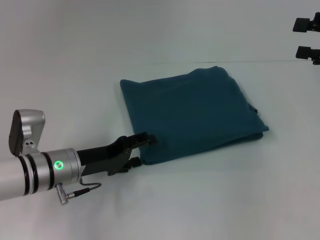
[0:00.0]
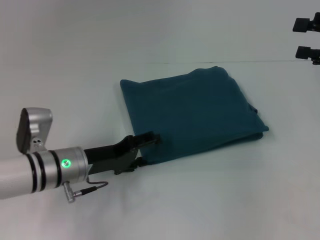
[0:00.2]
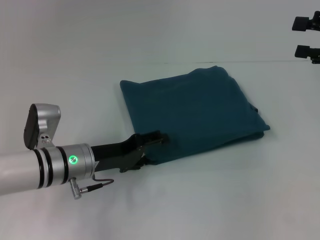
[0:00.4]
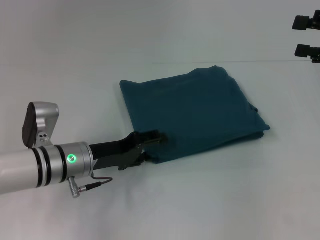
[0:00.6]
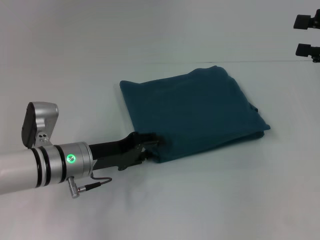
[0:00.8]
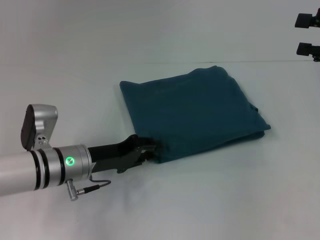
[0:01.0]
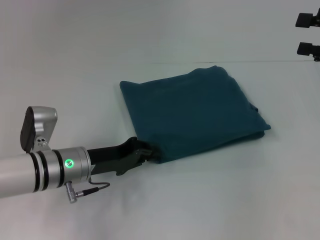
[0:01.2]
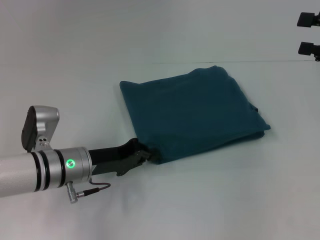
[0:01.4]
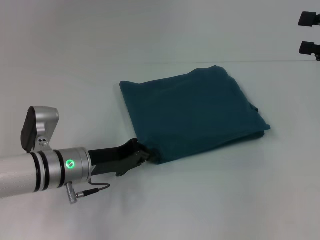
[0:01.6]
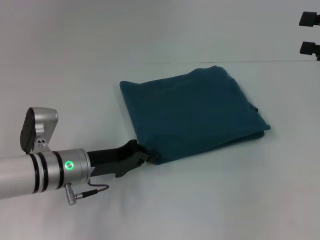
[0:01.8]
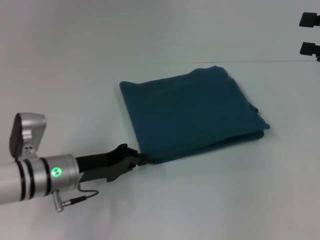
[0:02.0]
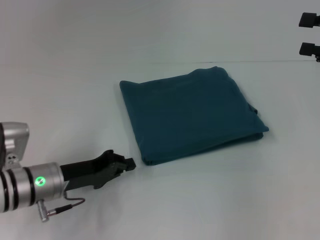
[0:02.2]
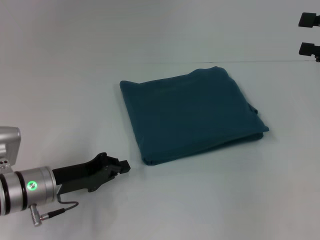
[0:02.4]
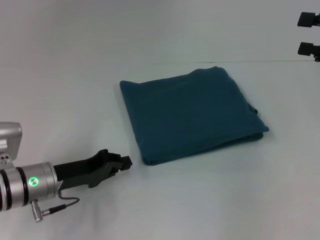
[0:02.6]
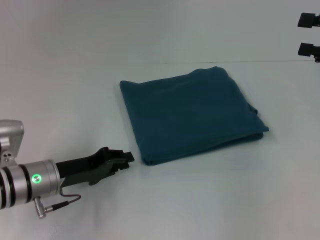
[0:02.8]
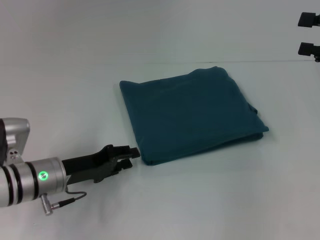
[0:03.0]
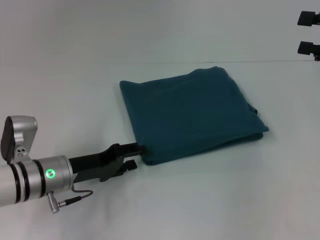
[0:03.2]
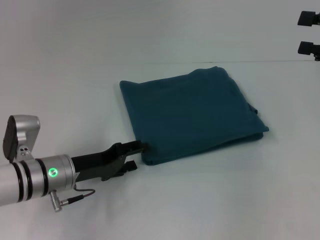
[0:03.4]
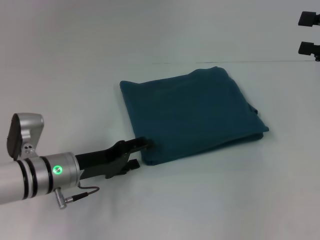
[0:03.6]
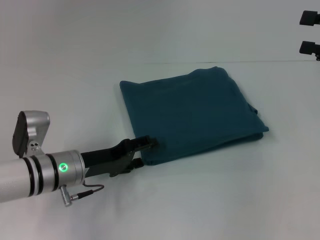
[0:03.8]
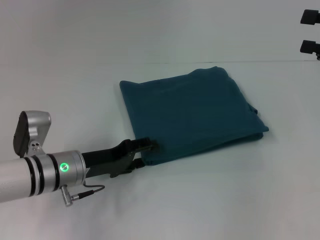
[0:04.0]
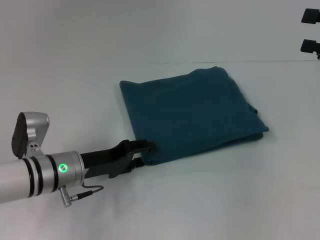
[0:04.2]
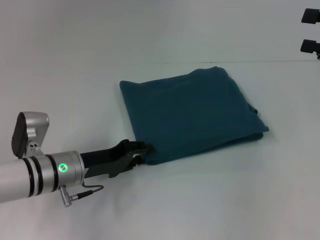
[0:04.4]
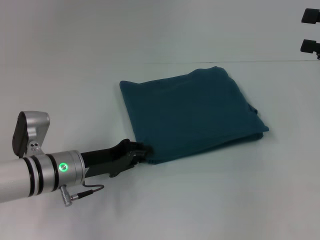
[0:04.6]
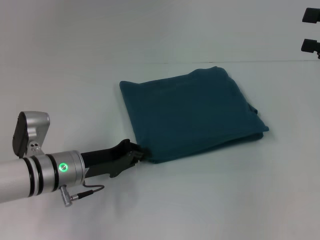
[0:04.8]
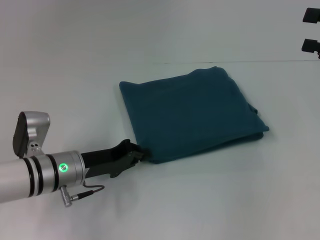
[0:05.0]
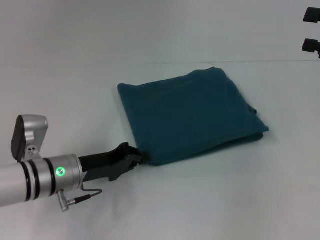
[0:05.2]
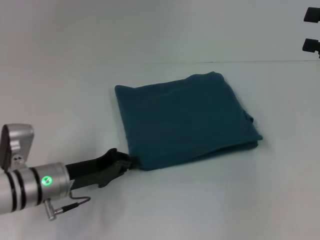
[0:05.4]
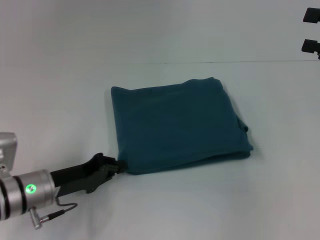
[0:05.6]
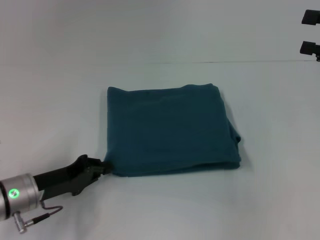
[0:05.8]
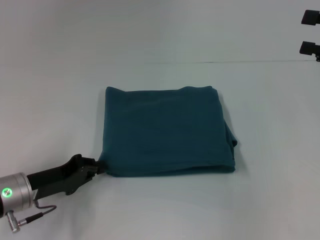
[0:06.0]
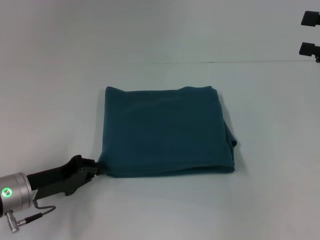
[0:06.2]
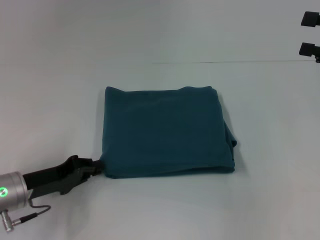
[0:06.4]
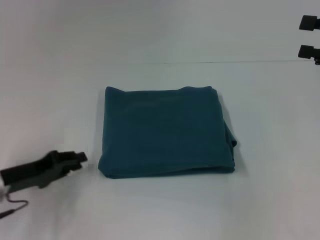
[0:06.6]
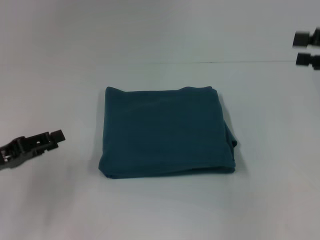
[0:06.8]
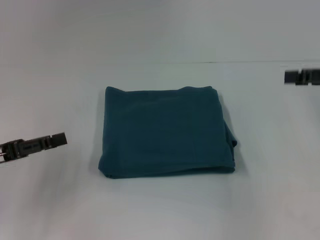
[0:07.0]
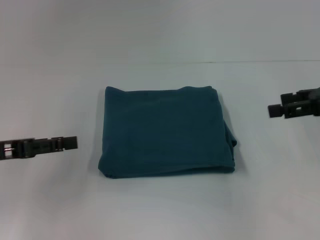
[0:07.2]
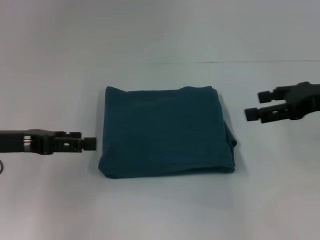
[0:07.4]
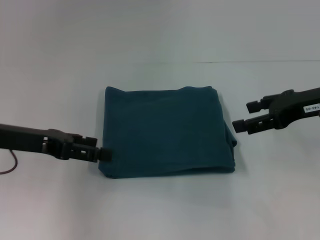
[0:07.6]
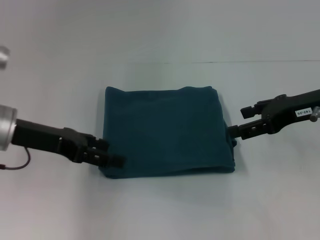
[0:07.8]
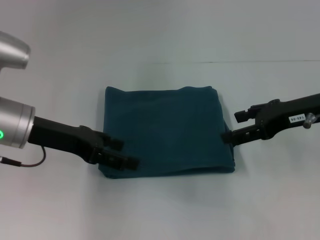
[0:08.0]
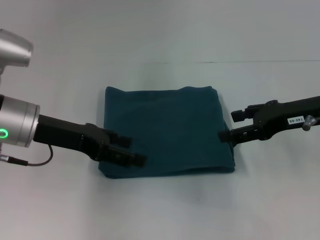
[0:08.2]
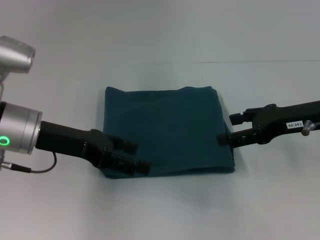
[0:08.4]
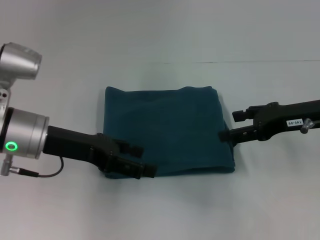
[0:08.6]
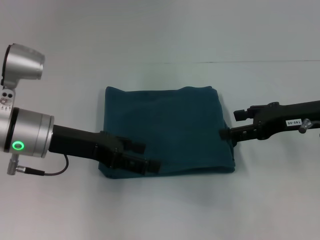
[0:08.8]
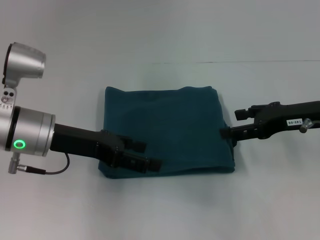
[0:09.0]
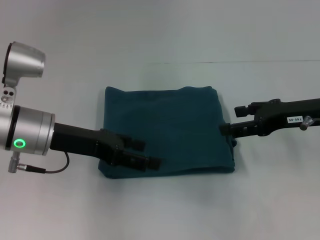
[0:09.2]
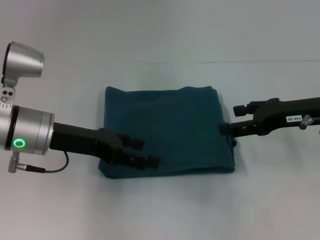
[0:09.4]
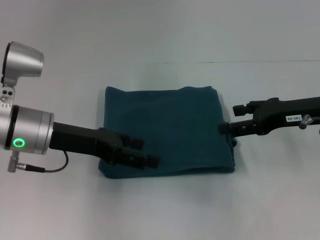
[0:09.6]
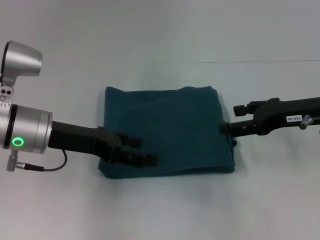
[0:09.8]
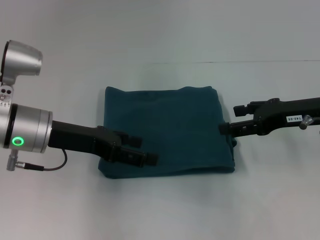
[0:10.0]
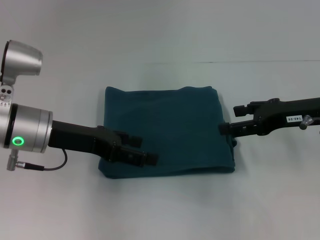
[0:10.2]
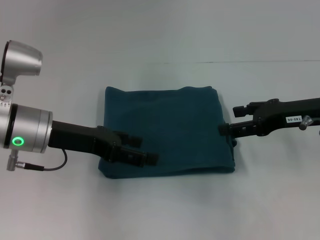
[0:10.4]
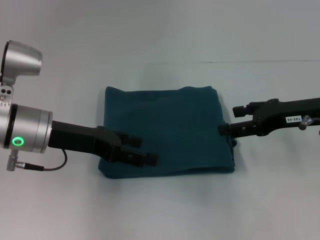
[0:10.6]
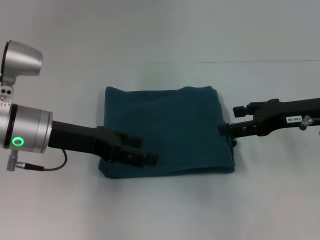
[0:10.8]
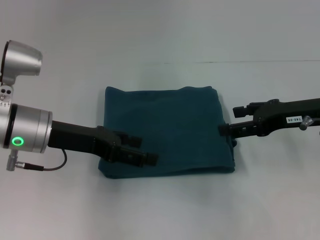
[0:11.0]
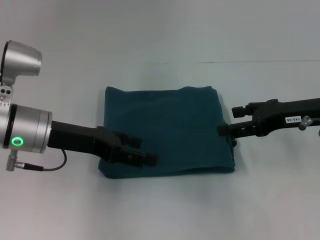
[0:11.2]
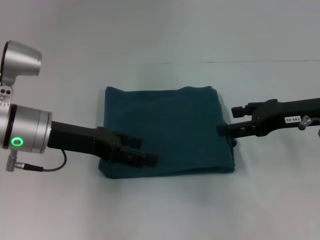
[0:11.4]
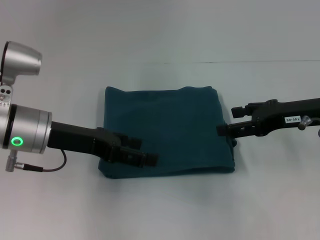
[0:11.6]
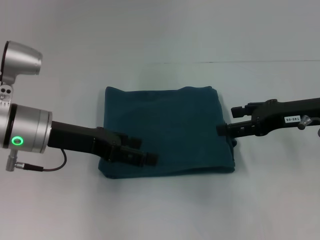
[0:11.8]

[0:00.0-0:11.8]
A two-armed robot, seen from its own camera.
0:00.0 to 0:01.4: The left gripper closes up.
0:01.4 to 0:03.0: The grippers move only a little.
0:03.0 to 0:04.4: The left gripper opens up.
0:04.4 to 0:06.0: The left gripper is displaced to the left by some 5 cm, and closes its fingers.
0:06.0 to 0:07.4: The left gripper shifts roughly 10 cm upward, and opens, while the right gripper is displaced to the left by roughly 5 cm.
0:07.4 to 0:08.8: The right gripper ends up some 5 cm from where it was. The left gripper shifts roughly 10 cm to the right.
0:08.8 to 0:11.8: Neither gripper changes place.

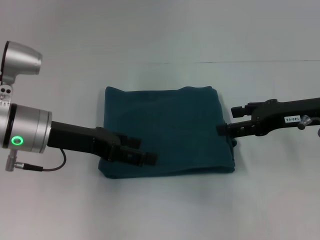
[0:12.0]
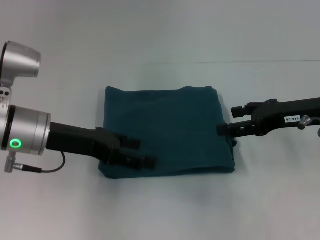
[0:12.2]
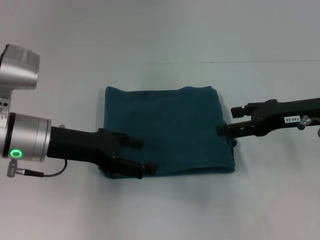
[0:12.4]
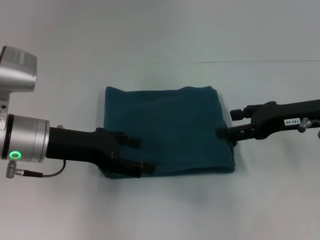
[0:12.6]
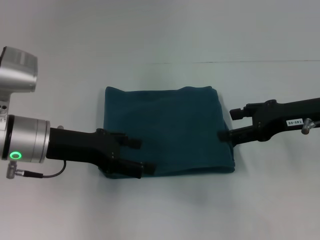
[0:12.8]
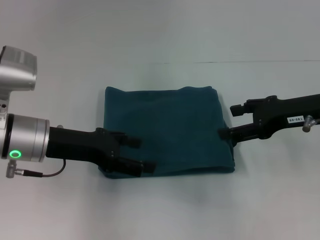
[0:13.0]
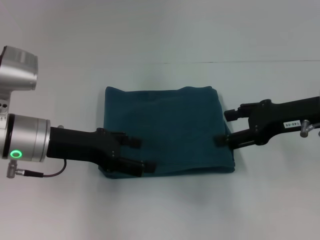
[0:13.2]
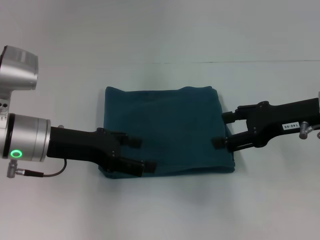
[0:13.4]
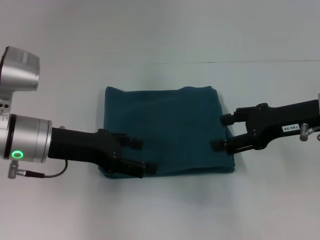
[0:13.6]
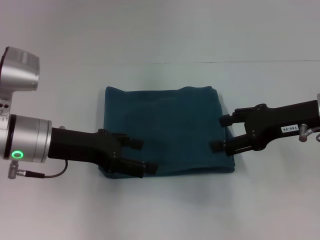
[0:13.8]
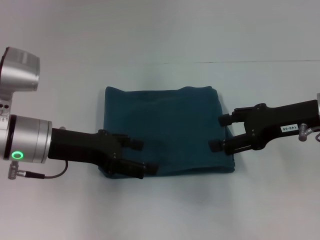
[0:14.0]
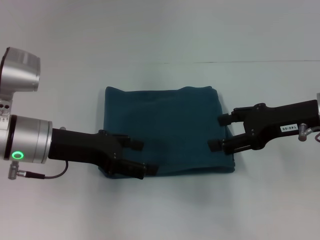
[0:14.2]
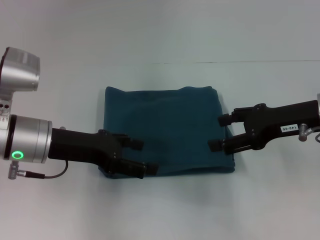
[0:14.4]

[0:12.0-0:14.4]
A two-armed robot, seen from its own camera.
0:12.0 to 0:13.2: There are only small adjustments of the grippers.
0:13.2 to 0:14.4: Neither gripper changes place.

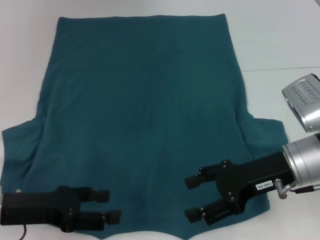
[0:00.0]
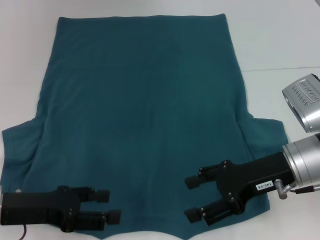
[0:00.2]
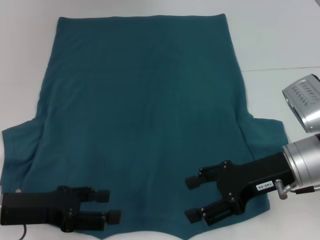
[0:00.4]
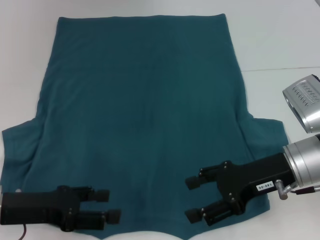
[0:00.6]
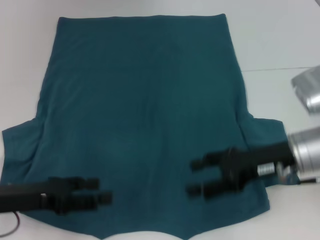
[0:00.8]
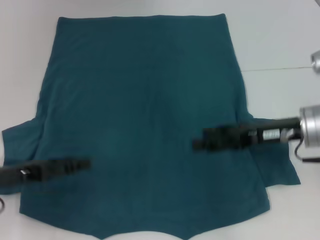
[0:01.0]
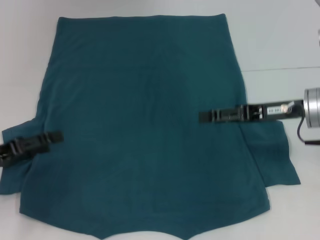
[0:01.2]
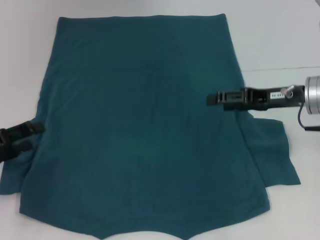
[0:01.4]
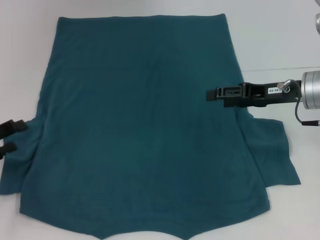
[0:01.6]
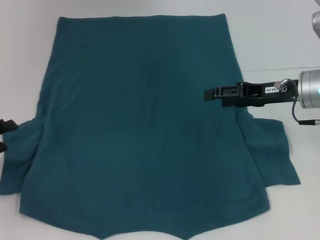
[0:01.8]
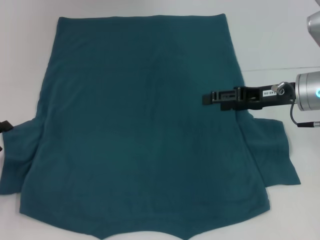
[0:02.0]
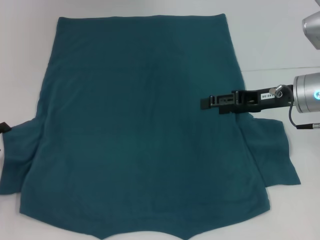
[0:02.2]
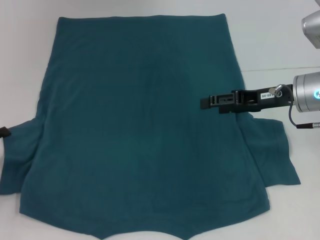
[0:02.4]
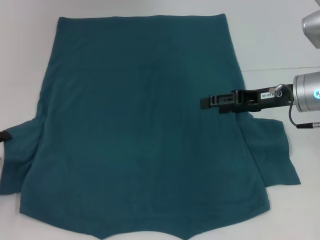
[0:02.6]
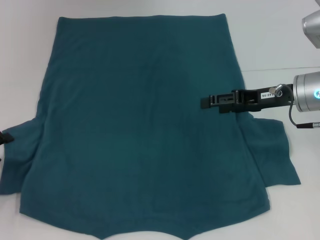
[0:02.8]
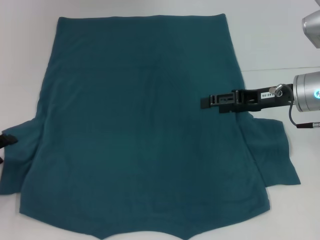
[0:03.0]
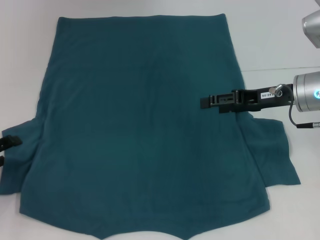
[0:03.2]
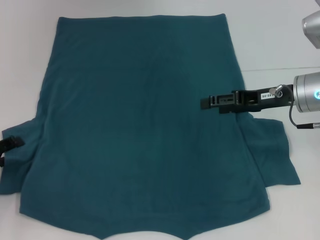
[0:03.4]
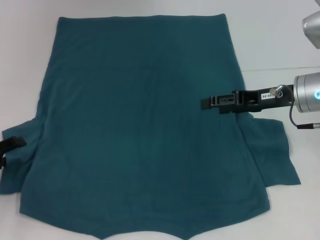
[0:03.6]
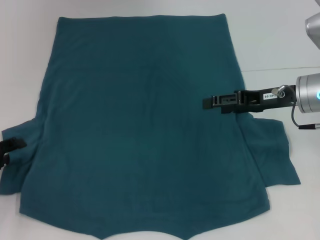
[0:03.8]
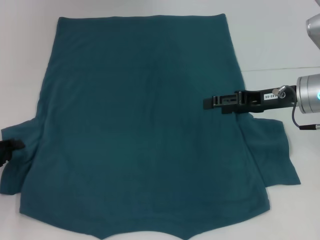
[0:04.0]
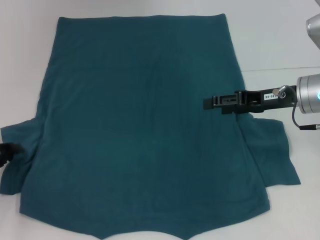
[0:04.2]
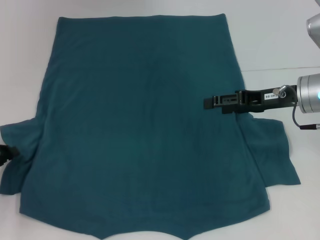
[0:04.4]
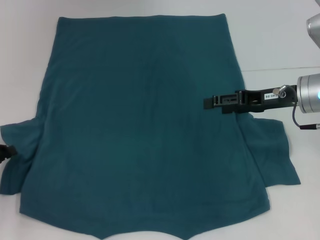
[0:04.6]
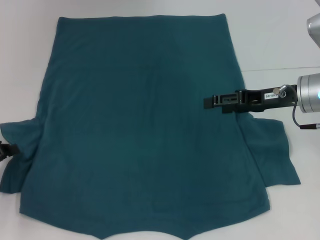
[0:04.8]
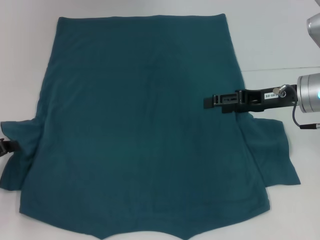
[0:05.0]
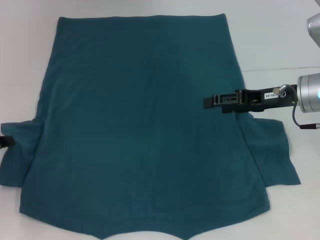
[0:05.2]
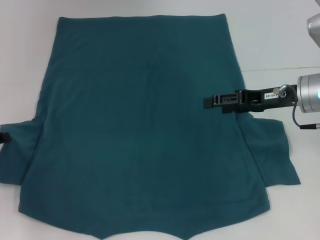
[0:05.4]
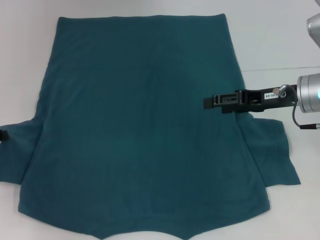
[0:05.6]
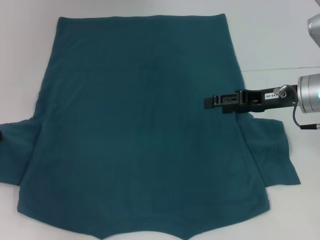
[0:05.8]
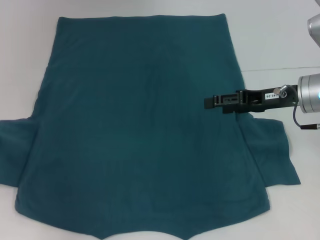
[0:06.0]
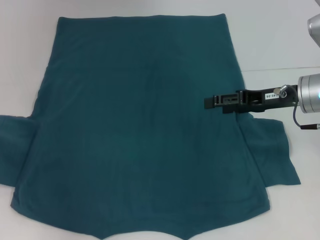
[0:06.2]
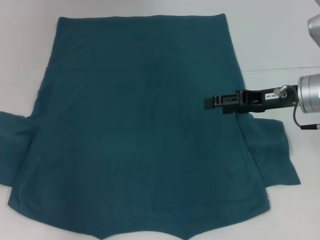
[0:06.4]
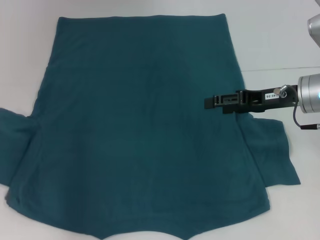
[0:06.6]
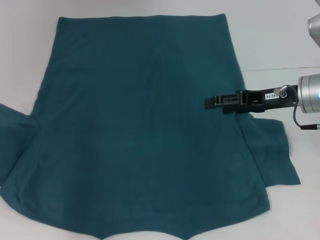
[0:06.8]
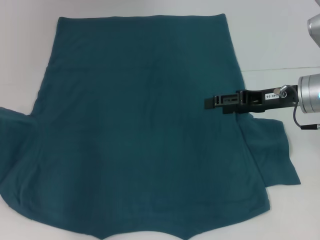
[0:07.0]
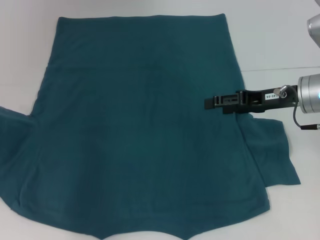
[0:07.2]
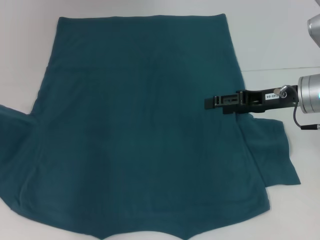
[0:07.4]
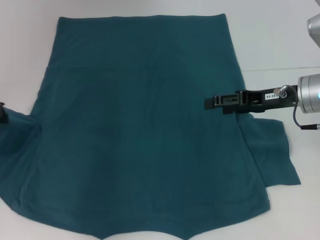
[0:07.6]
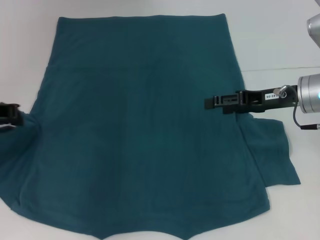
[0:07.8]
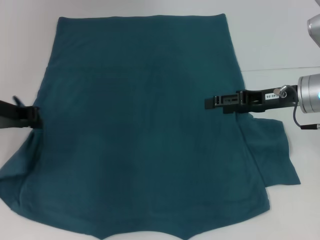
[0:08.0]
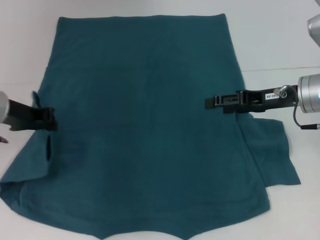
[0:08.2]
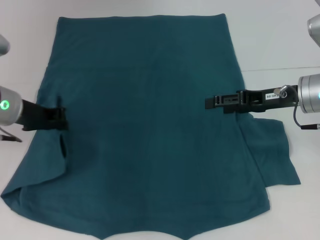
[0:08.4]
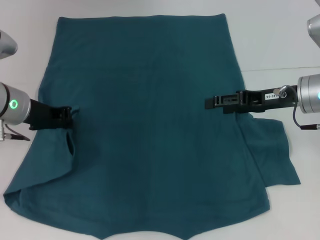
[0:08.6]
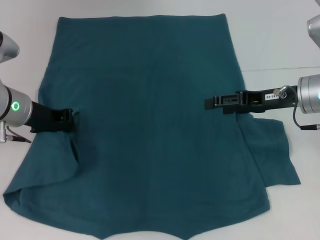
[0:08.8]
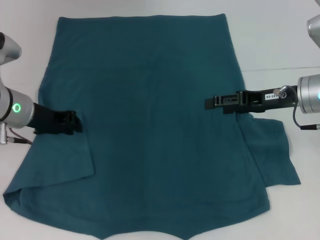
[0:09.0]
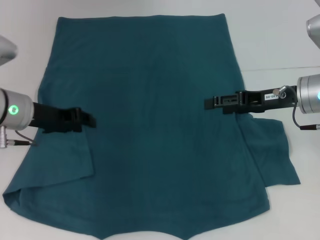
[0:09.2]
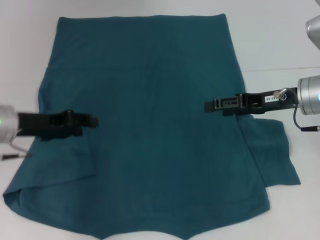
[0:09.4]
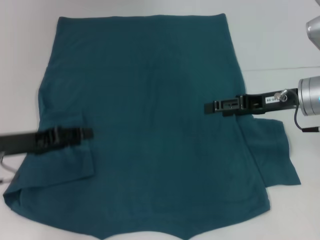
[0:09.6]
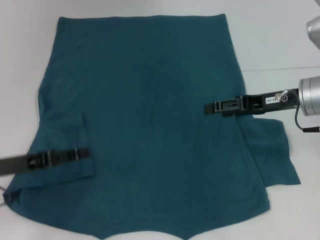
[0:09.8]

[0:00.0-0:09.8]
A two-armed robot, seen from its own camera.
Step, 0:00.0 to 0:09.0: Fold the bottom left sleeve with your left hand.
0:00.0 to 0:01.4: The left gripper shifts some 10 cm to the left, while the right gripper is displaced forward by roughly 5 cm.
0:02.8 to 0:04.2: The left gripper closes.
0:04.2 to 0:05.6: The left gripper changes place by approximately 5 cm, and closes its fingers.
0:05.6 to 0:07.0: The left gripper is displaced upward by some 5 cm.
0:07.0 to 0:08.4: The left gripper shifts roughly 10 cm to the right.
0:08.4 to 0:09.8: The left gripper heads backward, downward and to the left, covering some 15 cm, and opens.
